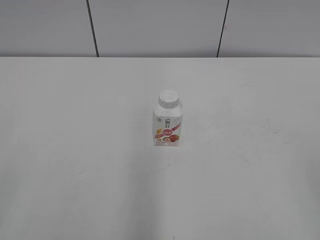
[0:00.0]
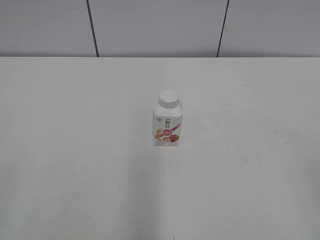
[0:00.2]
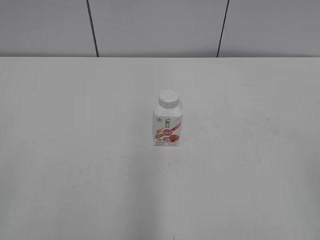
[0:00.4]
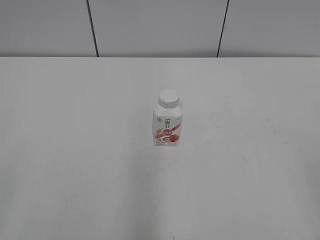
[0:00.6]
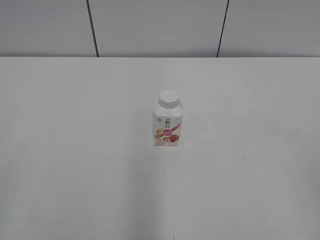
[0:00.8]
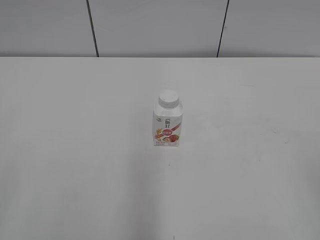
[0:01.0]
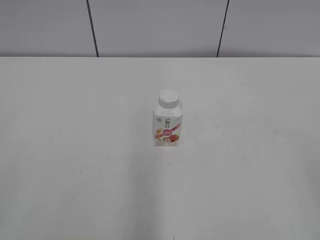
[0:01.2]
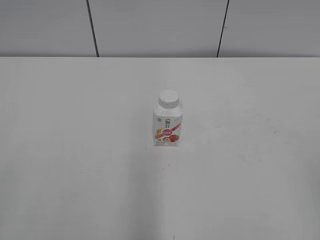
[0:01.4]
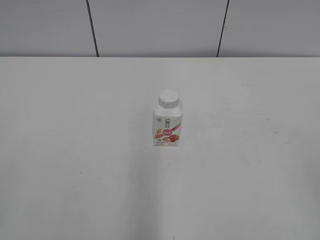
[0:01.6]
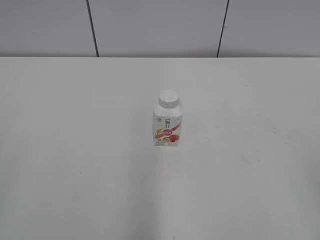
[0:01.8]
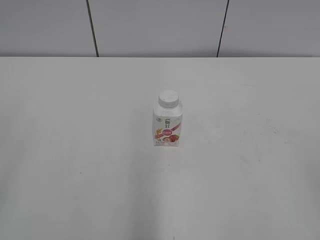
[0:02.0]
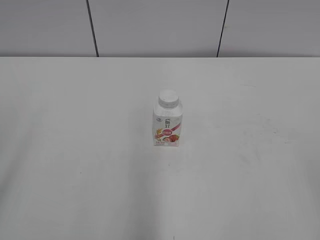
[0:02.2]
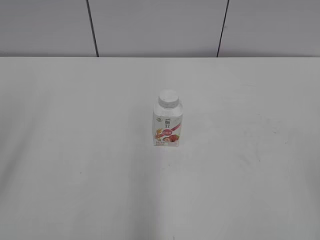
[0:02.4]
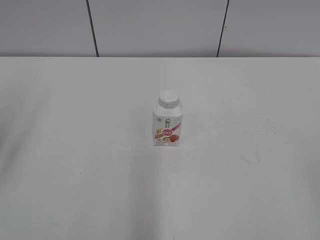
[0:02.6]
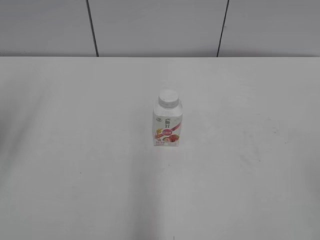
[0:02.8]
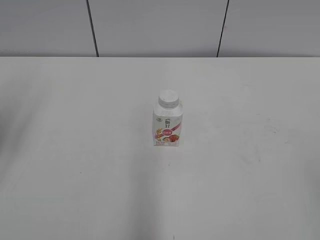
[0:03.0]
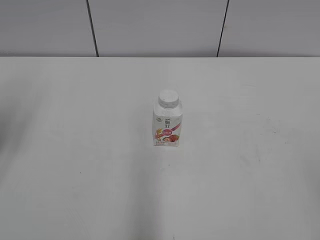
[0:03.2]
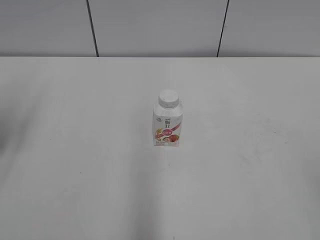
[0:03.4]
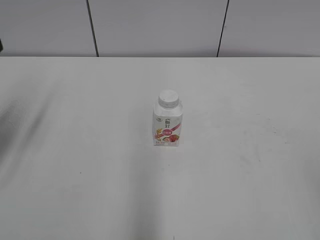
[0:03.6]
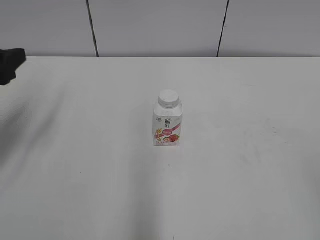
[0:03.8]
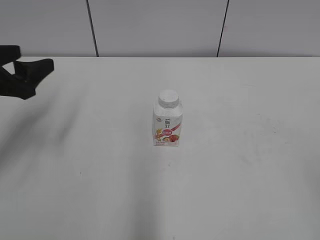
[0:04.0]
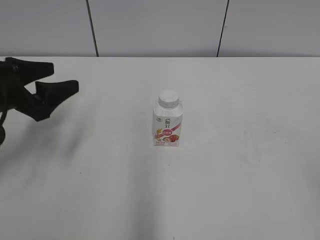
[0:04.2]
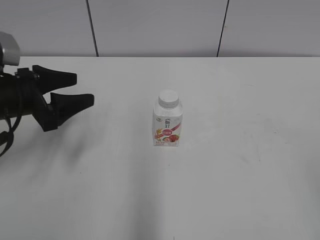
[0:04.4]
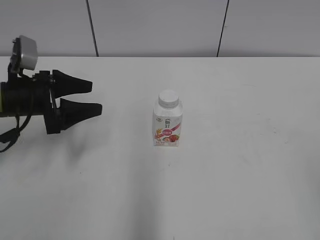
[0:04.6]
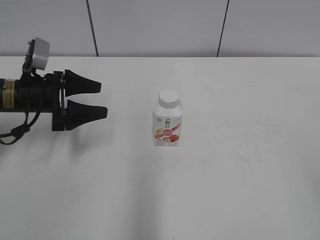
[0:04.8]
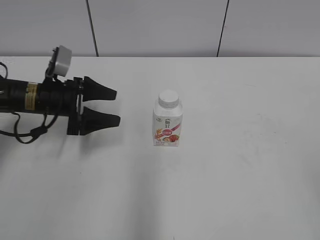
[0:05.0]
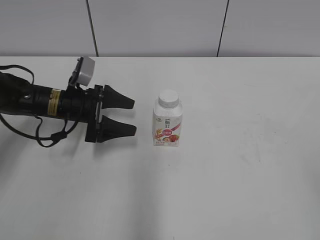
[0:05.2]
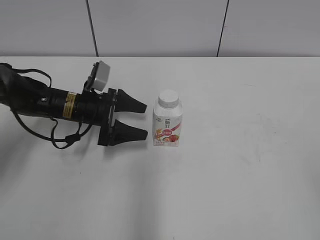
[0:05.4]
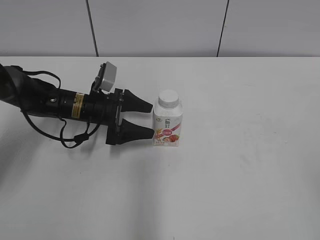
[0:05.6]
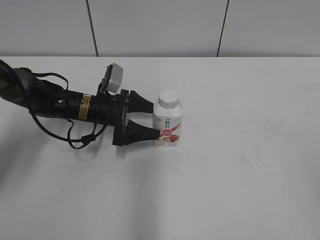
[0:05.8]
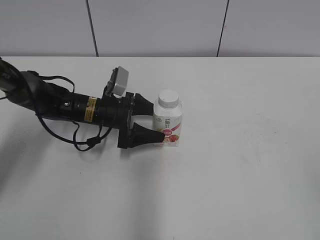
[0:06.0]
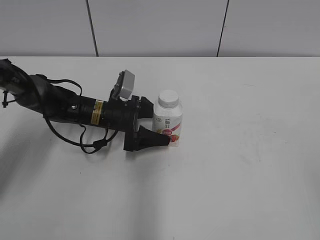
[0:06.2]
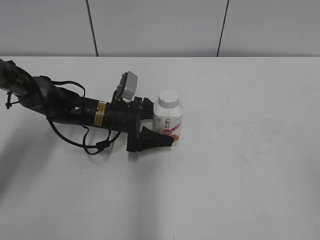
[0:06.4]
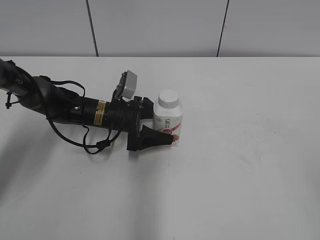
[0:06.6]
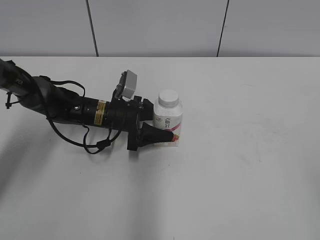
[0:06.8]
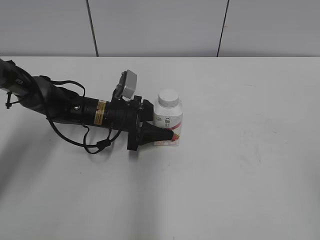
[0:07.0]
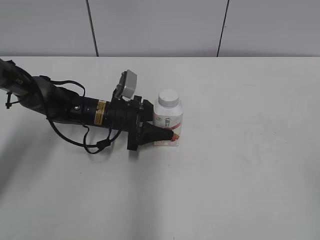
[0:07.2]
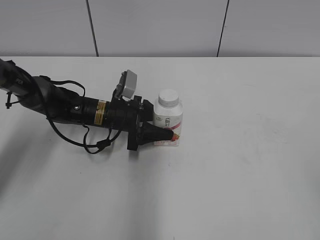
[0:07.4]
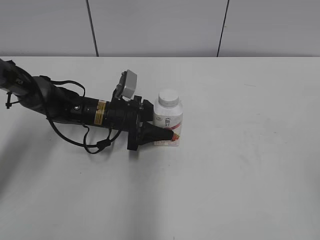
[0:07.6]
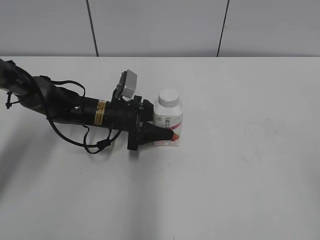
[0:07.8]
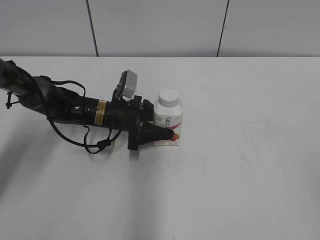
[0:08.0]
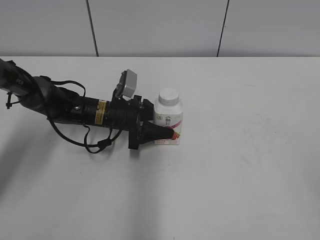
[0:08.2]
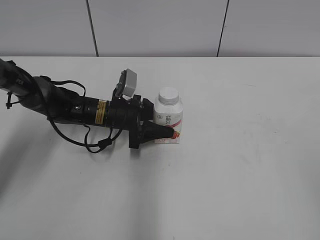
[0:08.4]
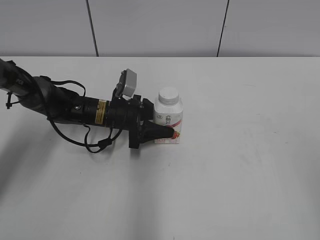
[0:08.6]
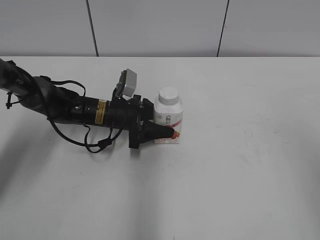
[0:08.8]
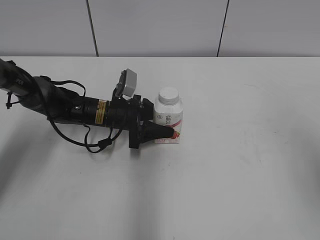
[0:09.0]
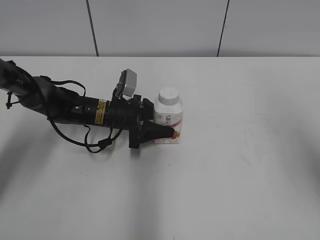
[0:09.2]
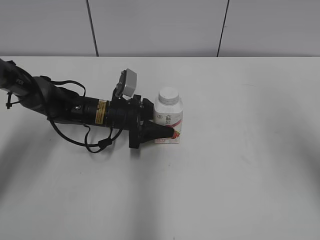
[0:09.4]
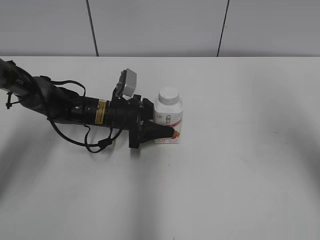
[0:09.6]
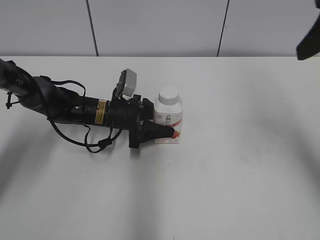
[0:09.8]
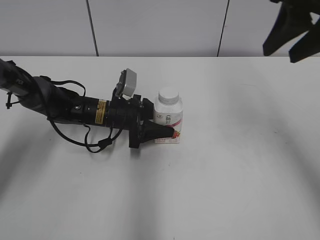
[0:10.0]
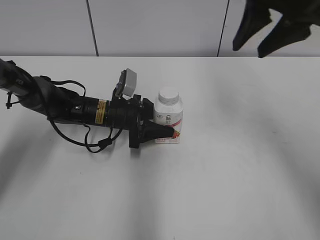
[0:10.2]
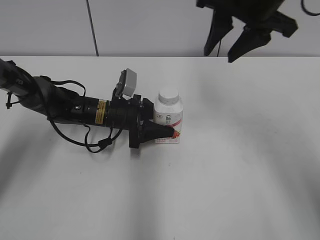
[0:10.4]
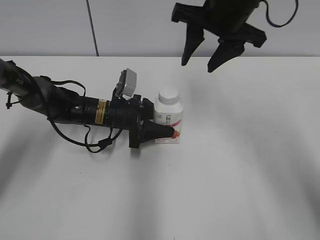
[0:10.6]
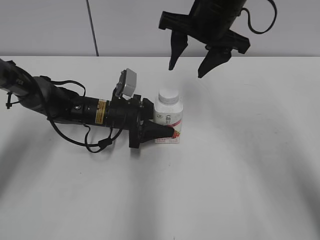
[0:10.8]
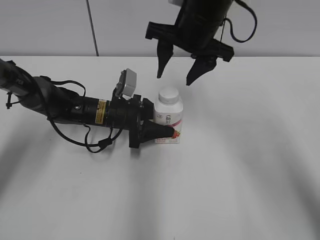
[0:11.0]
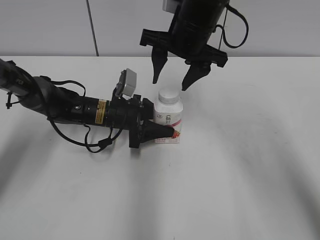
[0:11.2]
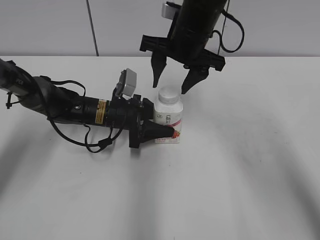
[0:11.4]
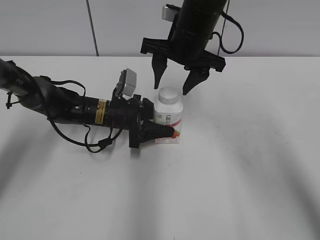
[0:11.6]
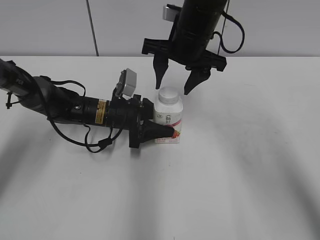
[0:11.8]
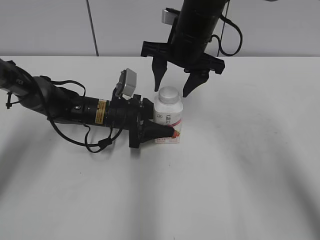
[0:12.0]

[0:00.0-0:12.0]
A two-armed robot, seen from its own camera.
Step, 0:00.0 to 0:07.0: Grab the Yili Changqing with the left hand.
0:01.6 to 0:03.0: The left gripper is displaced forward by about 20 cm.
0:03.0 to 0:04.4: The left gripper shifts approximately 15 cm downward, to the right and forward.
0:04.4 to 0:06.0: The left gripper moves to the right, downward and forward, approximately 20 cm.
0:06.0 to 0:07.6: The left gripper closes.
0:07.6 to 0:09.0: The right gripper is displaced forward and upward by roughly 15 cm.
0:09.0 to 0:10.4: The right gripper goes roughly 30 cm forward and to the left.
0:10.4 to 0:12.0: The right gripper travels downward and to the left by roughly 15 cm, and opens.

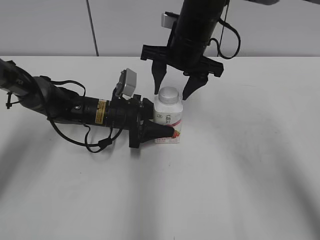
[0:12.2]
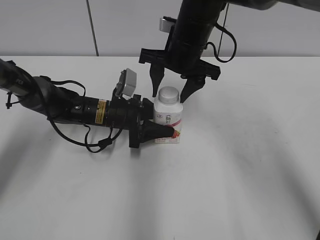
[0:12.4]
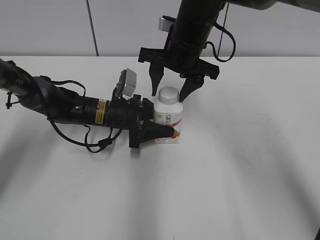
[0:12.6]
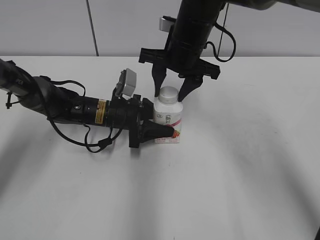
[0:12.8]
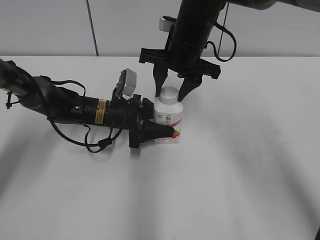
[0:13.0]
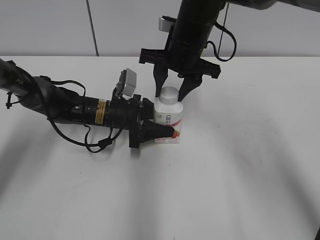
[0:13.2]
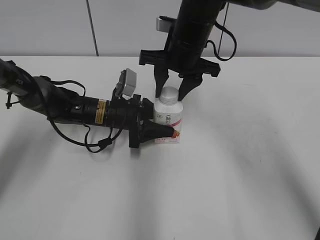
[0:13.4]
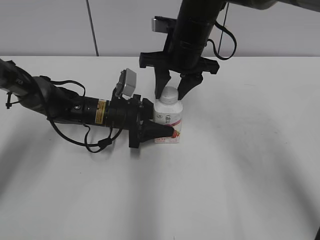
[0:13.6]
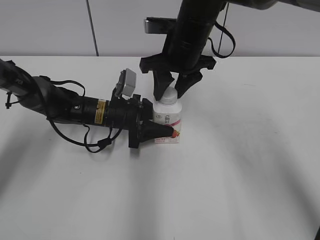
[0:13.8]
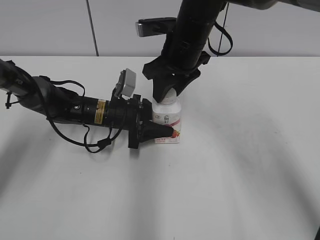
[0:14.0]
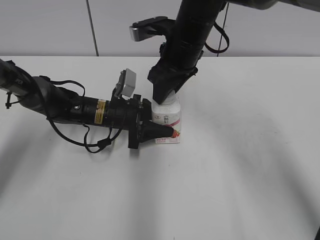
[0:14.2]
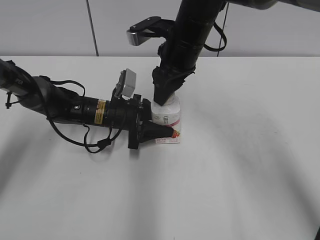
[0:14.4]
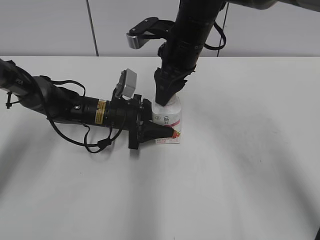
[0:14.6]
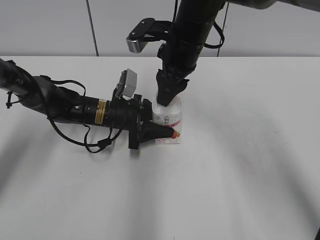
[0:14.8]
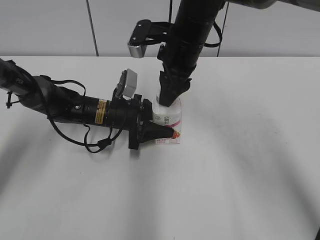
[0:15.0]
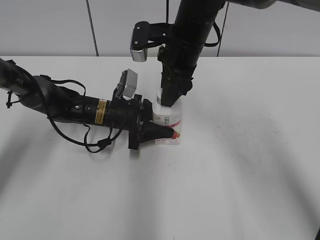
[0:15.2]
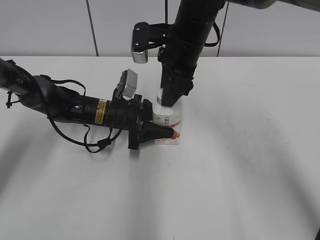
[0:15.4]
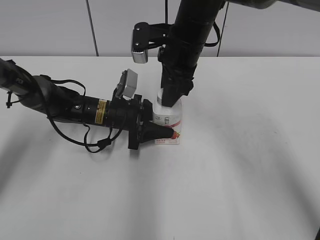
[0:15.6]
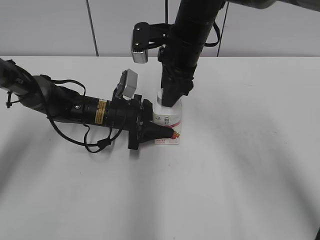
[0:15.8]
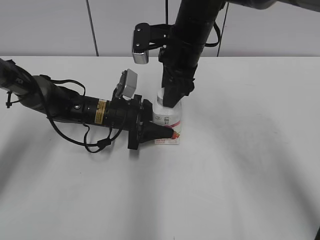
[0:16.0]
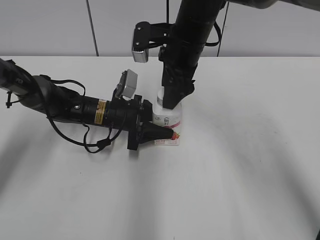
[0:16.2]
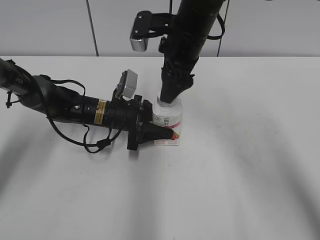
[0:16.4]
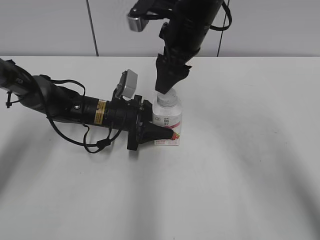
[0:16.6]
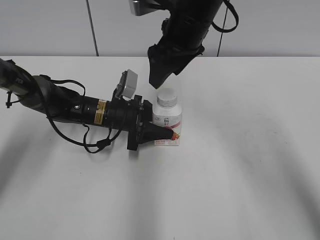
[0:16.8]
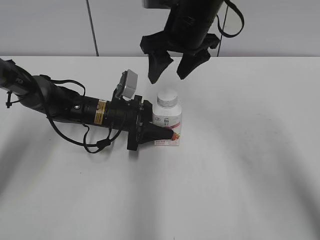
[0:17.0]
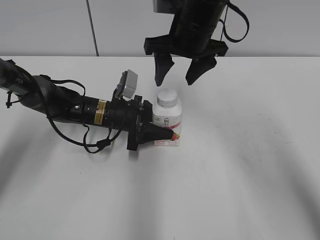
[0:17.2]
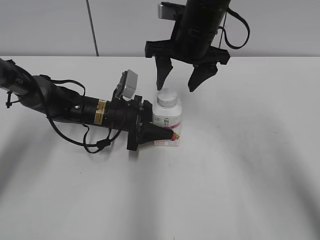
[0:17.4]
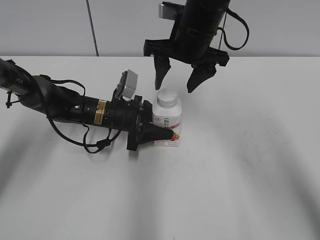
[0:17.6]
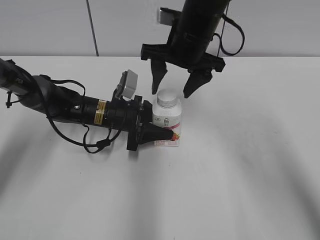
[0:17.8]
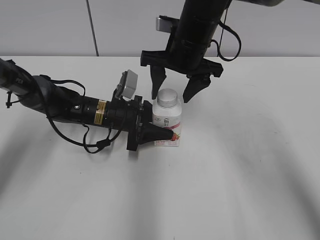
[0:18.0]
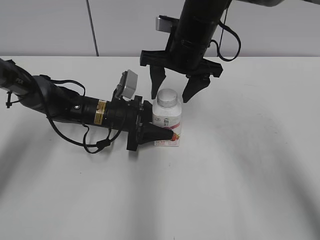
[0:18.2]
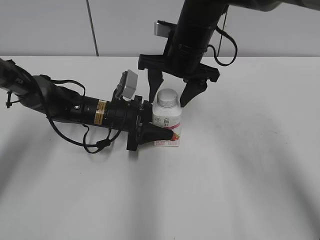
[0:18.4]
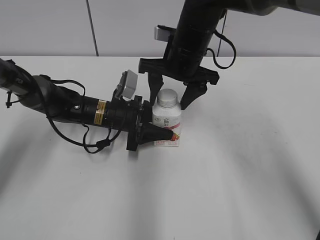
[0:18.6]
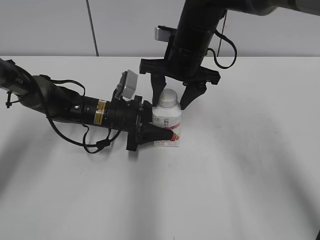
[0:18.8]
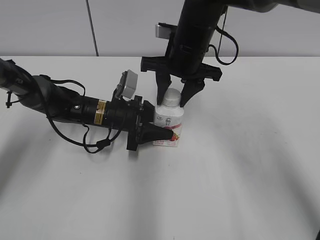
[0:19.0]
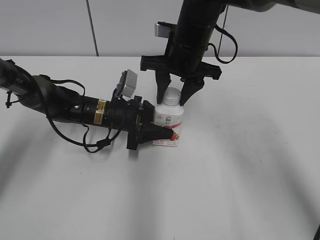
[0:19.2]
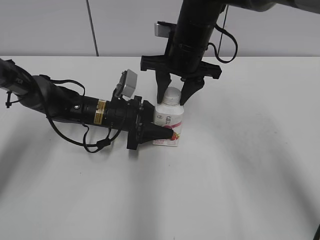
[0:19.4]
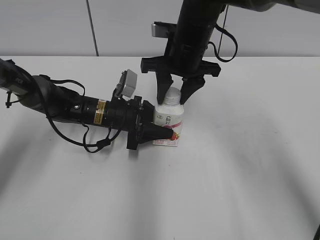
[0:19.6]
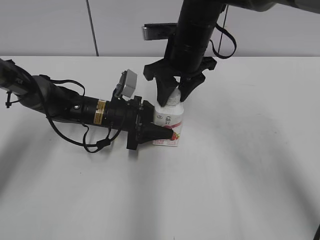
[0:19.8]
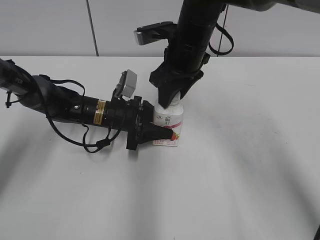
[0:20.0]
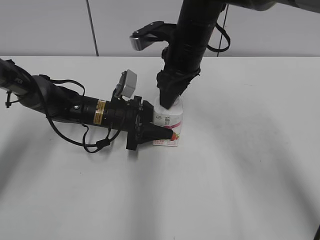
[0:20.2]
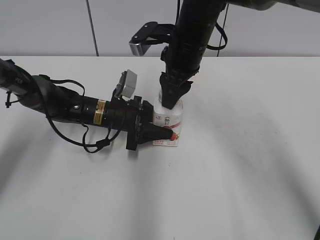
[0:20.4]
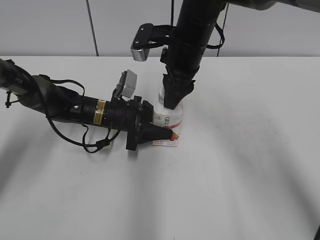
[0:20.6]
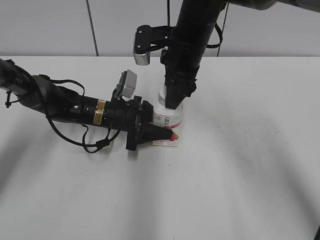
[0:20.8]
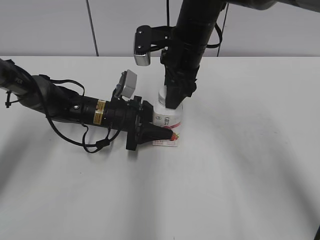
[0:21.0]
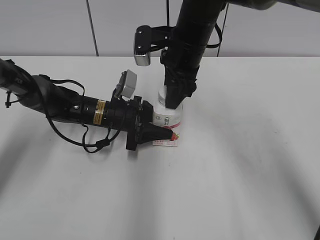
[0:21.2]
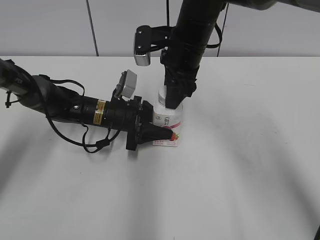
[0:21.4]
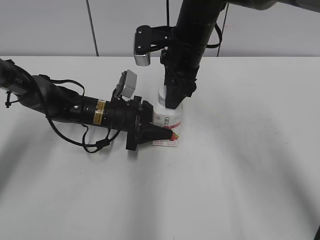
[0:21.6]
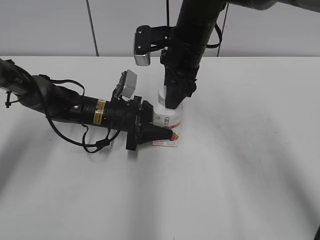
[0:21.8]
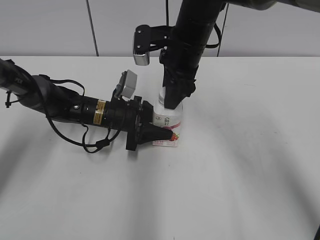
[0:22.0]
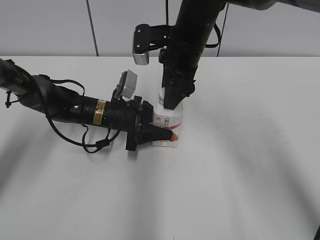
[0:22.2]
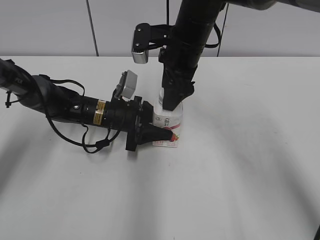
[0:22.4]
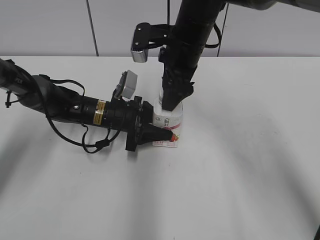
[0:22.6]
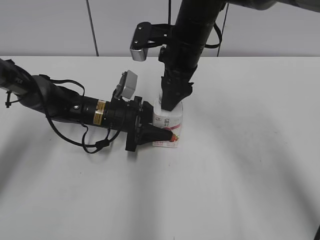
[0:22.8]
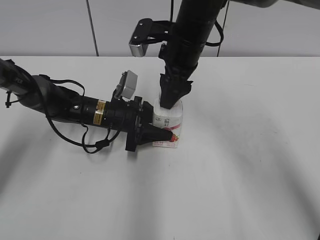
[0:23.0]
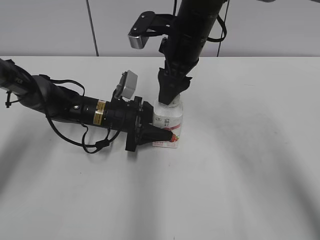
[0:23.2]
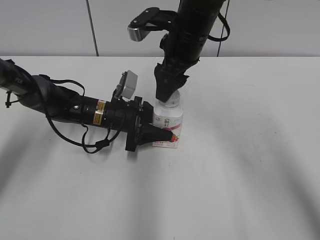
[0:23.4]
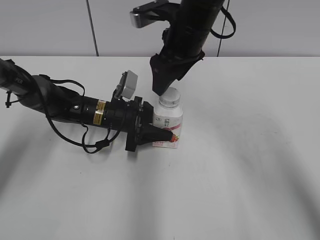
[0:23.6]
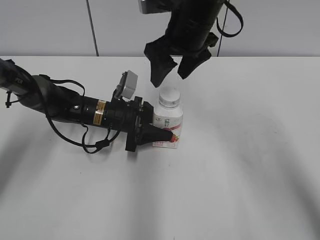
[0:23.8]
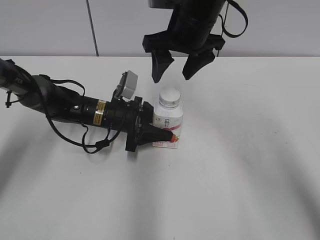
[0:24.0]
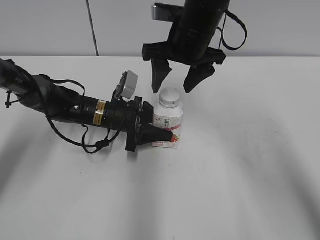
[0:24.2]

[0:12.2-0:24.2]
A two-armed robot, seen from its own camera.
0:12.2 to 0:13.8: The right gripper closes up.
0:15.2 to 0:16.6: The right gripper opens up.
0:18.2 to 0:19.8: The right gripper closes up.
0:21.2 to 0:22.6: The right gripper opens up.
